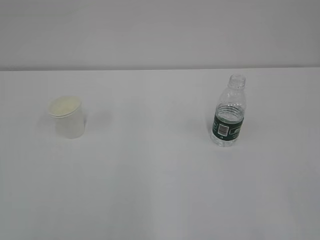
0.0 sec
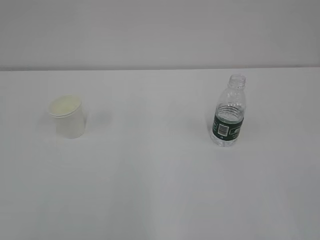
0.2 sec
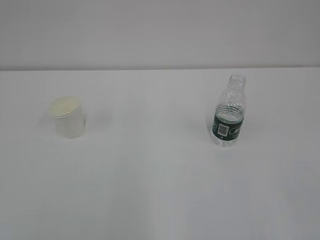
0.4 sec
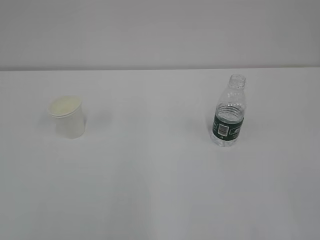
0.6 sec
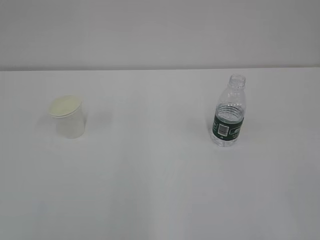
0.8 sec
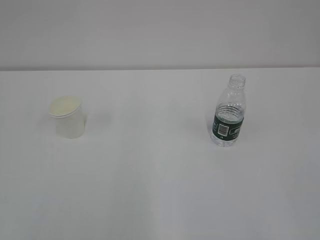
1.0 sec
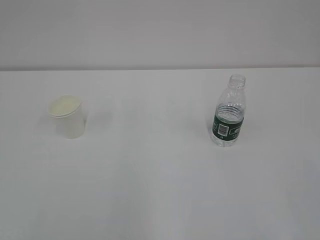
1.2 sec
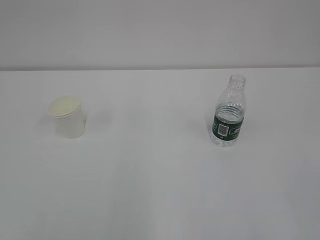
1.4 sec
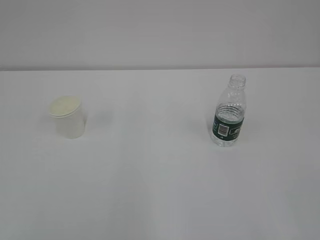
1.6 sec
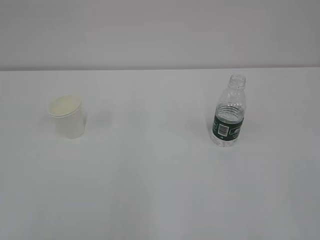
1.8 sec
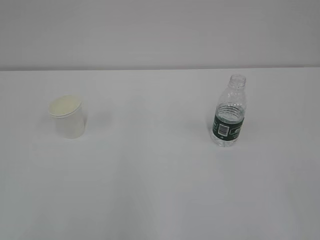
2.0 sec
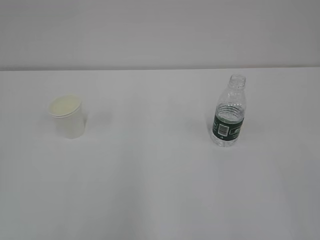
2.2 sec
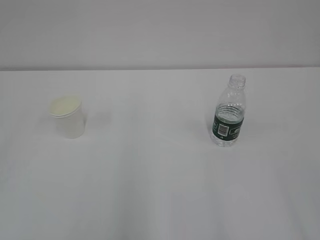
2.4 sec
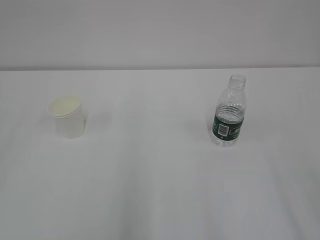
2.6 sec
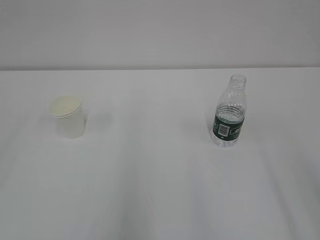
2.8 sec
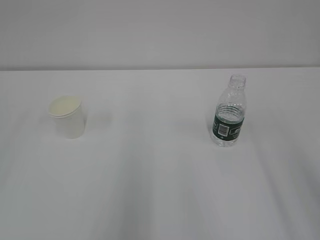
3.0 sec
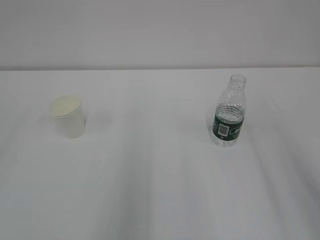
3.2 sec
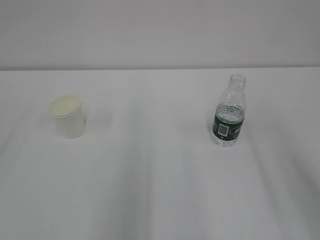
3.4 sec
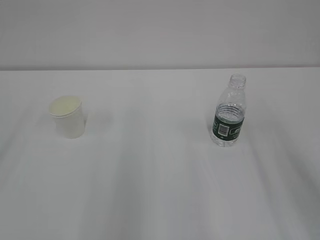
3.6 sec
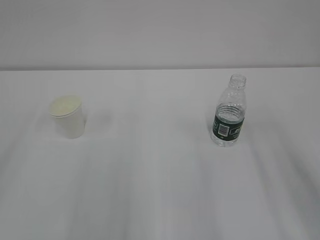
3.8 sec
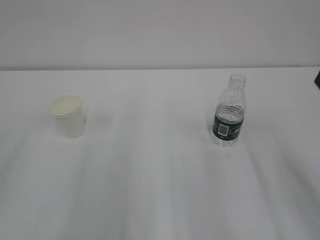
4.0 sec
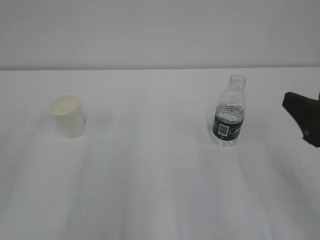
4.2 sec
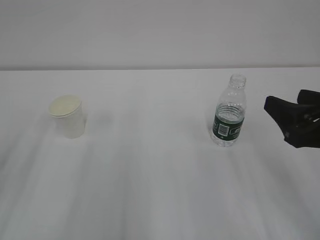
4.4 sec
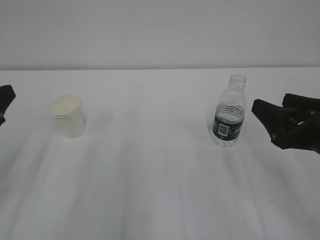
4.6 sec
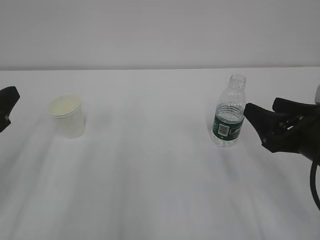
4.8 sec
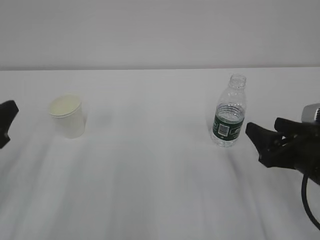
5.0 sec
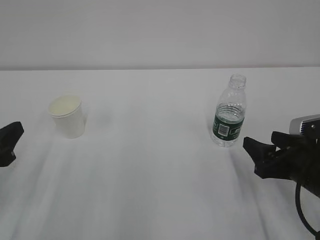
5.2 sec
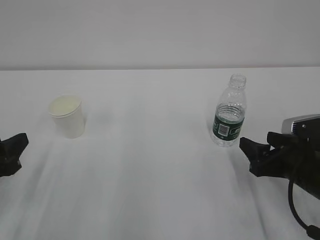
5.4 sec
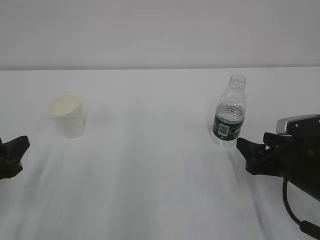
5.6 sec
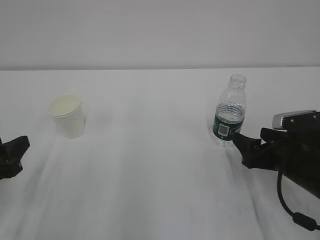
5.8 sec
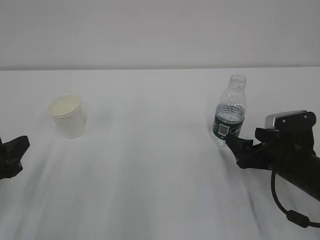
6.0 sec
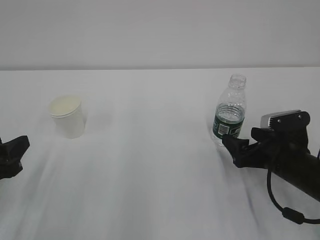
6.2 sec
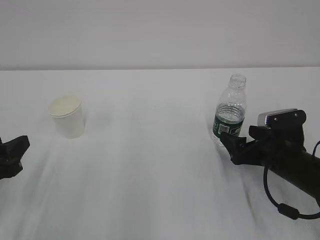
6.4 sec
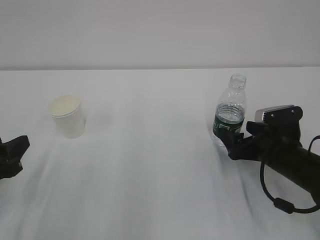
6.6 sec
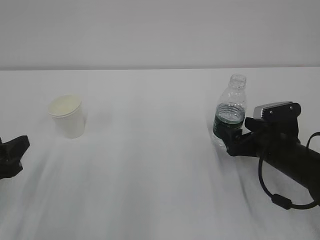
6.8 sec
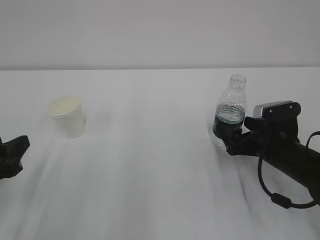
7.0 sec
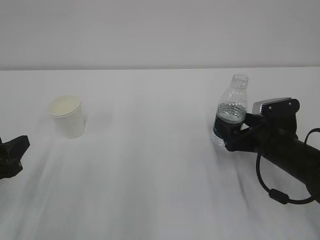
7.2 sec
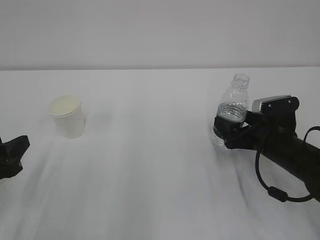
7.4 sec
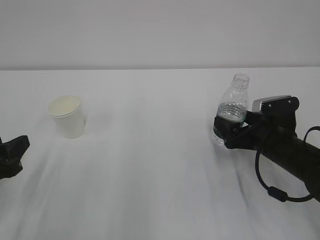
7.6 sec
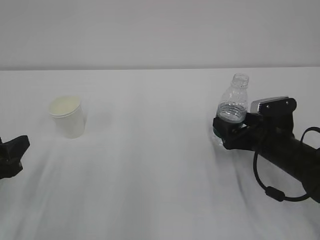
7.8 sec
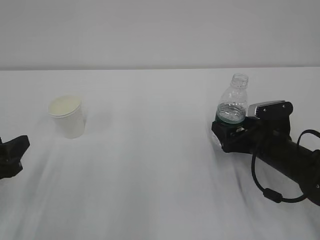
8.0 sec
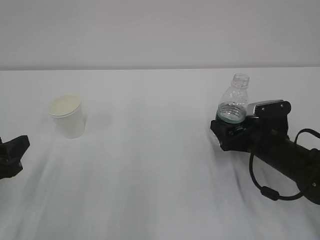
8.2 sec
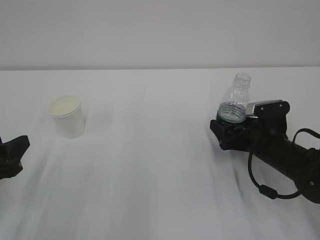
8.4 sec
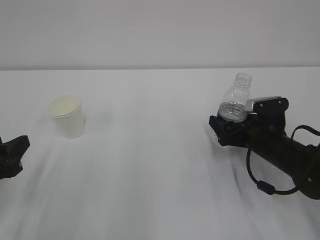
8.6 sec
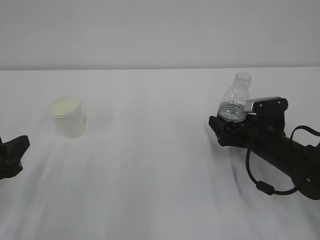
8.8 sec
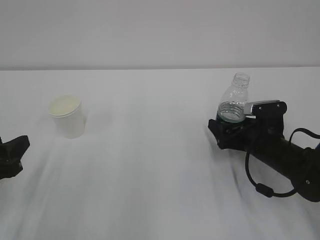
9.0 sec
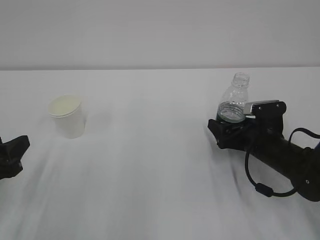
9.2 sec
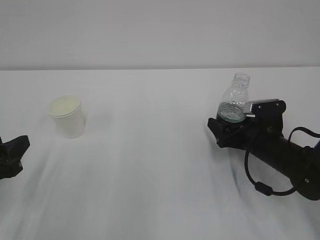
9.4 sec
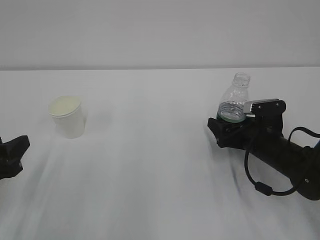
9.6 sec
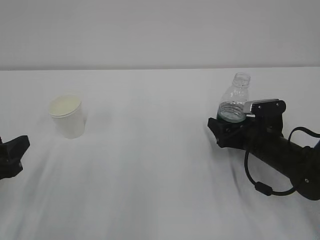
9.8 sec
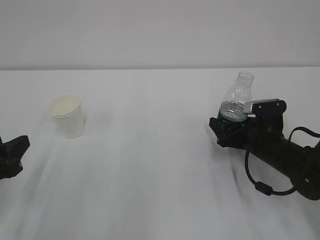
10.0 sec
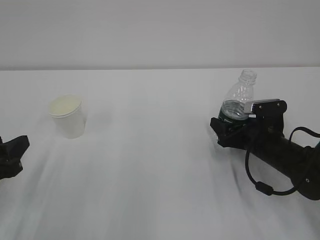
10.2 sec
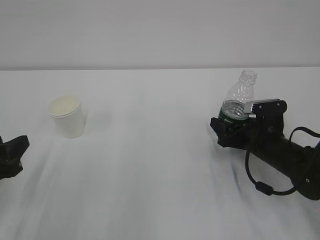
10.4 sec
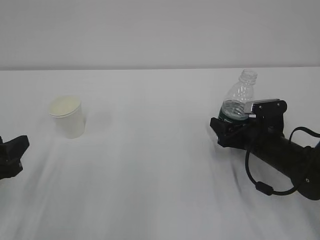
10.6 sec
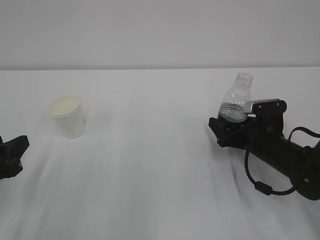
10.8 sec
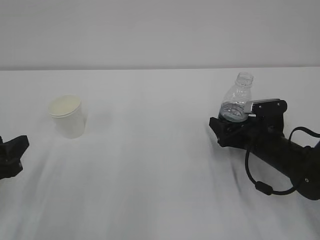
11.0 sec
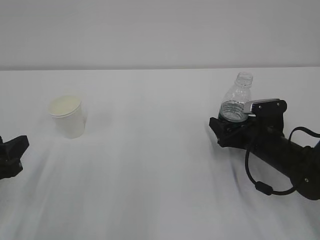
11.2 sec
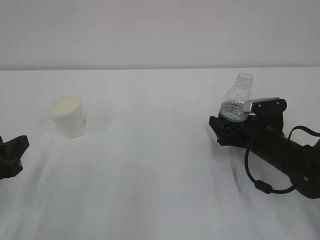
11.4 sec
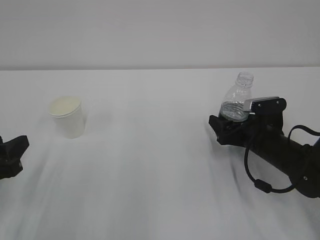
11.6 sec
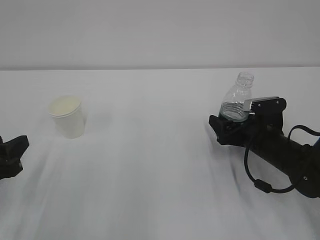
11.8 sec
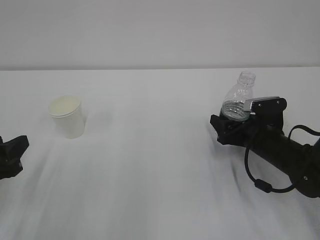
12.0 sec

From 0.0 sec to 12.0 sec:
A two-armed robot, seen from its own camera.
From 3.0 sec to 4.4 sec: The right gripper is displaced downward and forward by about 15 cm.
From 4.4 sec to 6.0 sec: The left gripper is displaced downward by some 10 cm. Meanwhile the right gripper is displaced downward and forward by roughly 15 cm, and opens.
From 6.0 sec to 7.6 sec: The grippers make only small movements.
From 7.6 sec to 9.0 sec: The grippers stay close to where they were, moving slightly.
From 9.0 sec to 10.4 sec: The right gripper closes.
From 10.4 sec to 12.0 sec: Both grippers stay about where they are.

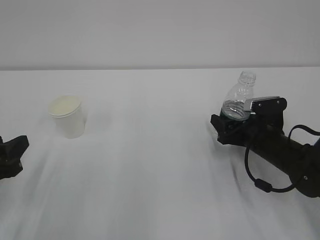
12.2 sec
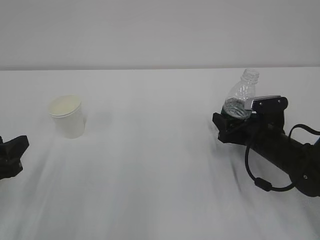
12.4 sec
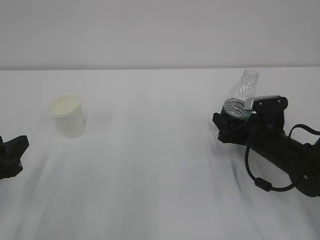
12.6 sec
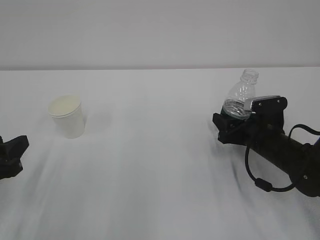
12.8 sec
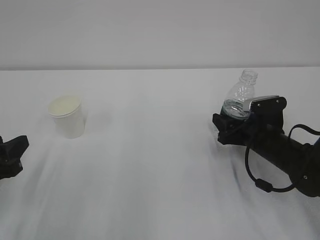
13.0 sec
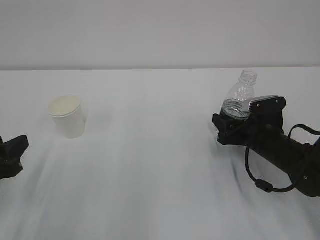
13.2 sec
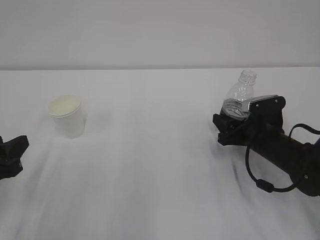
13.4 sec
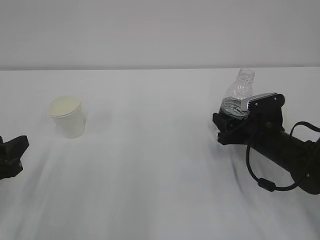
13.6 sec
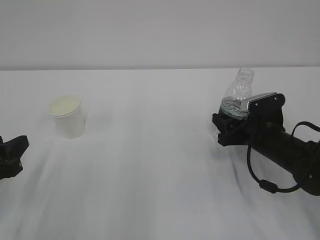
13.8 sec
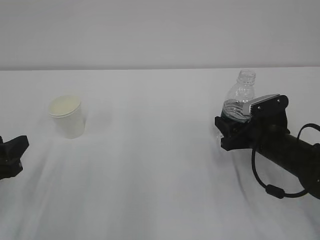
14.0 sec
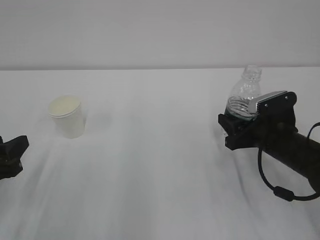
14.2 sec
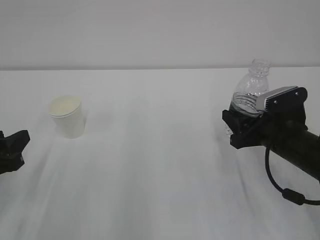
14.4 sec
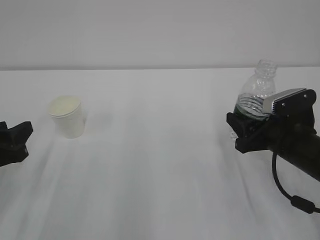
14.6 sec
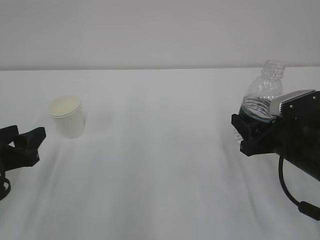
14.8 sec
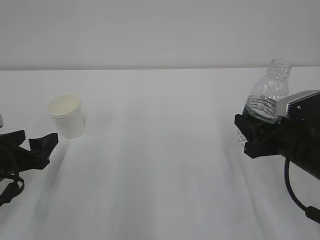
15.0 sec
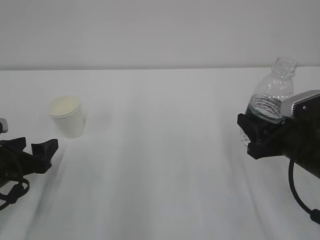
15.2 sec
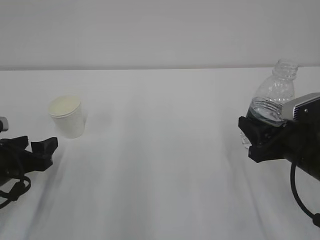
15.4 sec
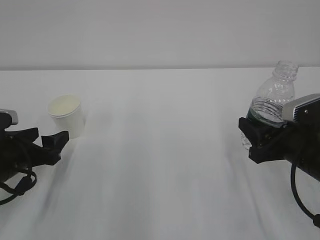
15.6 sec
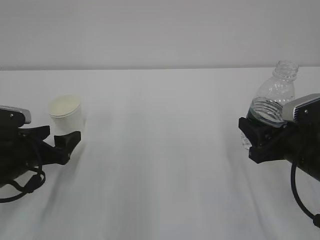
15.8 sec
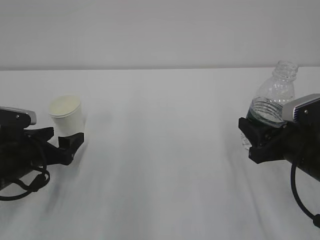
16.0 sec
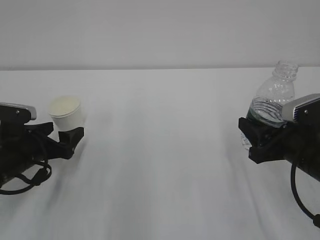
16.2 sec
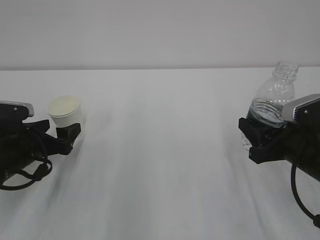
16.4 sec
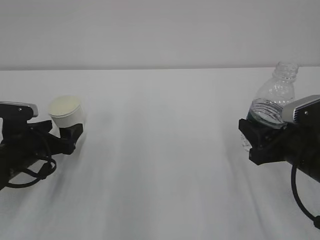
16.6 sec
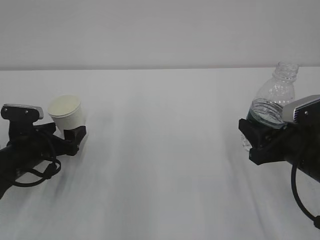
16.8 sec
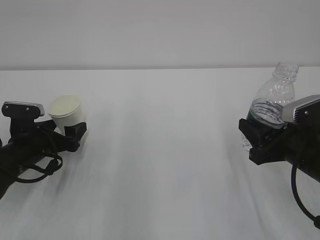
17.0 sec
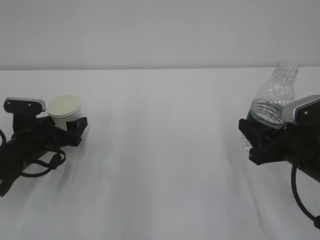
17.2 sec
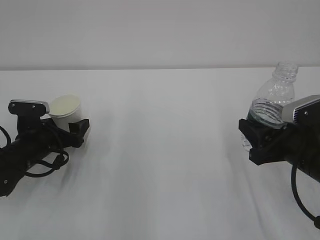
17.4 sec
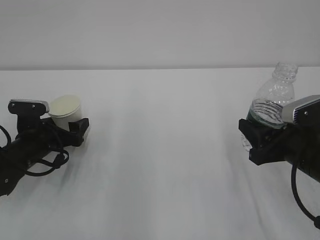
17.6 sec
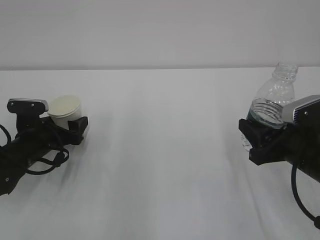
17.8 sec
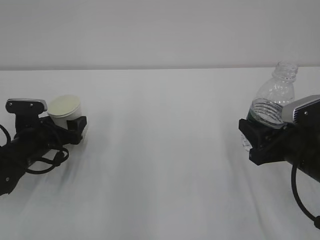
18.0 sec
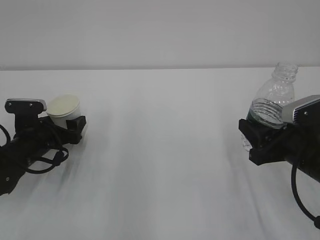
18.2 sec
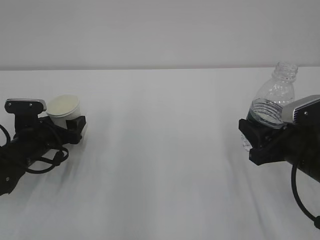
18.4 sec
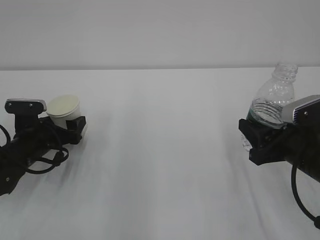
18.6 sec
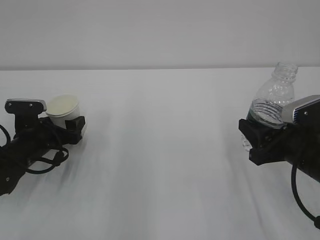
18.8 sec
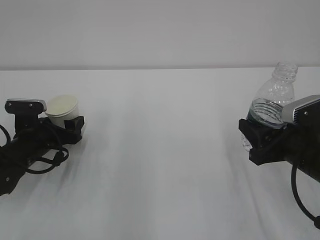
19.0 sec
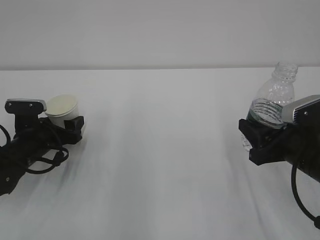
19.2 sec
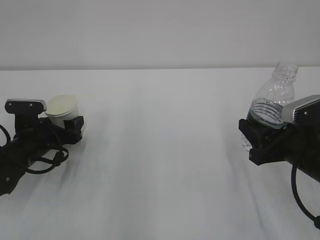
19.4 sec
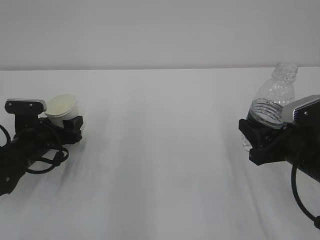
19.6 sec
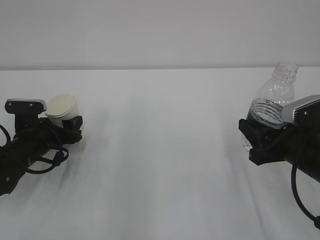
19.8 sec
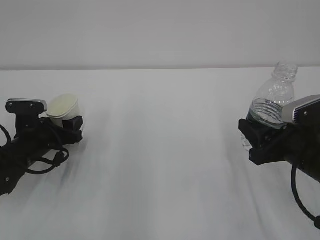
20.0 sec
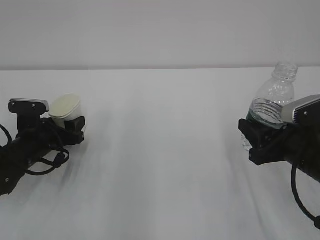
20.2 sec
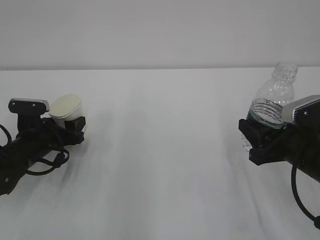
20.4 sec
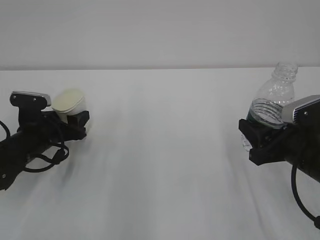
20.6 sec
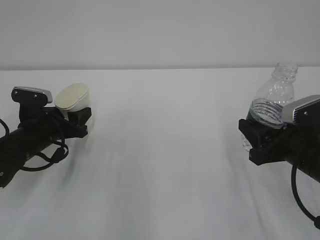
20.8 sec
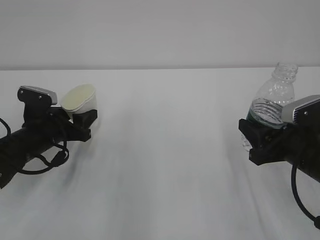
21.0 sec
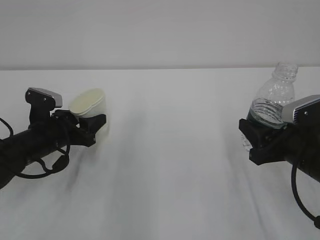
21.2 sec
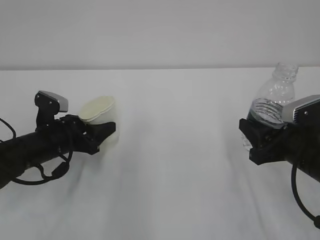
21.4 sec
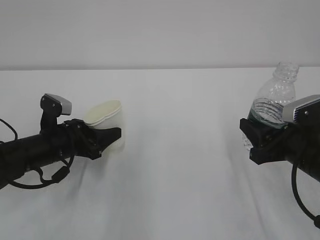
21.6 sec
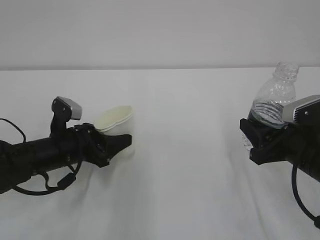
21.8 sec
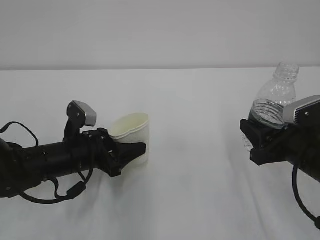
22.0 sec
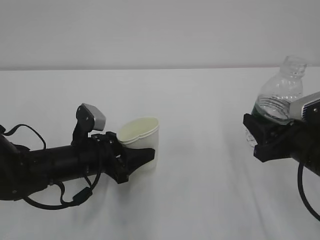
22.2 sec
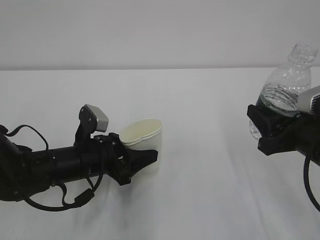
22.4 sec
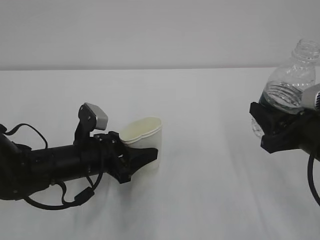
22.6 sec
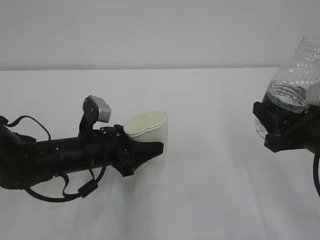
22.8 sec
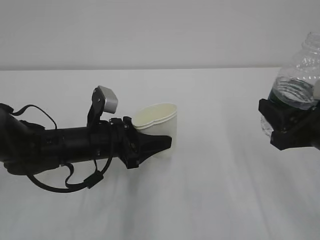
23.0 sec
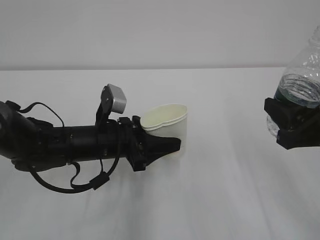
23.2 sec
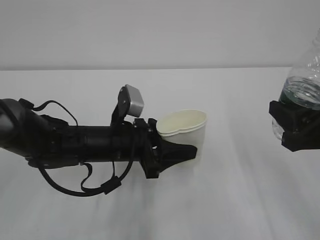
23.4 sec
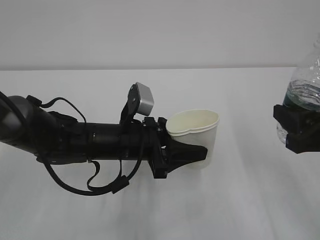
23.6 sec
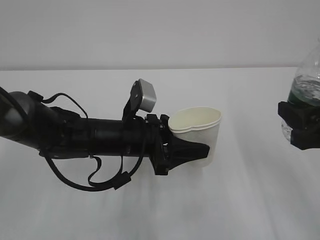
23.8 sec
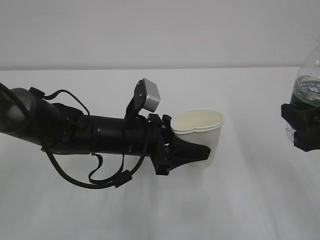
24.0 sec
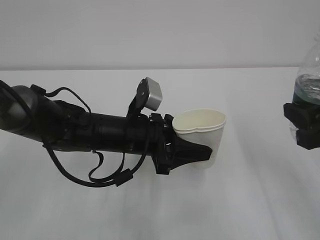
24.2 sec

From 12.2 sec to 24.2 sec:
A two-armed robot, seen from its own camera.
From 12.2 sec to 13.8 sec: The right gripper closes its fingers.
From 13.8 sec to 15.2 sec: The right gripper shifts roughly 10 cm backward and upward, while the left gripper moves some 5 cm, and opens its fingers.
From 15.2 sec to 16.6 sec: The left gripper travels forward by about 5 cm.
From 16.6 sec to 18.2 sec: The grippers make only small movements.
From 21.2 sec to 22.6 sec: The left gripper travels to the right and backward by some 10 cm.
From 22.6 sec to 24.2 sec: The left gripper moves to the right, some 10 cm; the right gripper goes approximately 5 cm upward.
